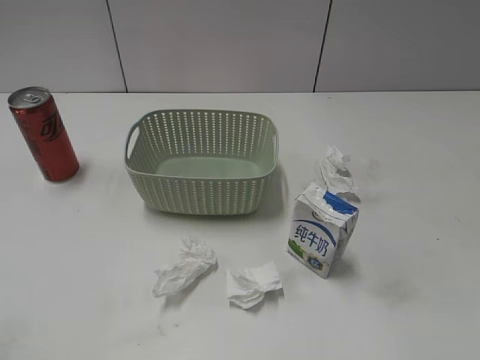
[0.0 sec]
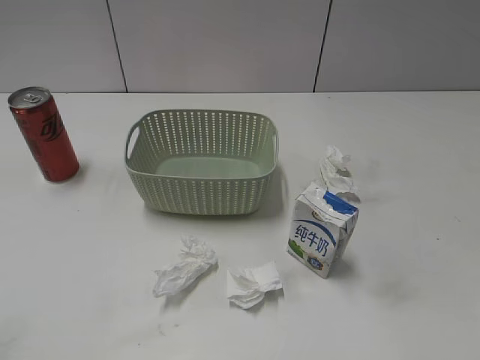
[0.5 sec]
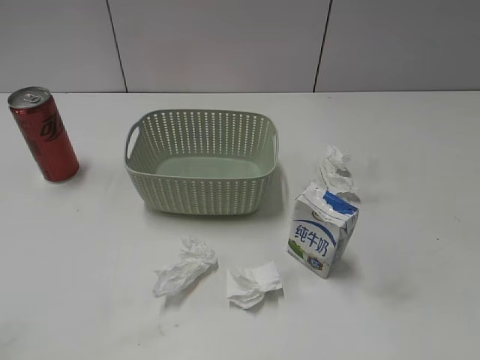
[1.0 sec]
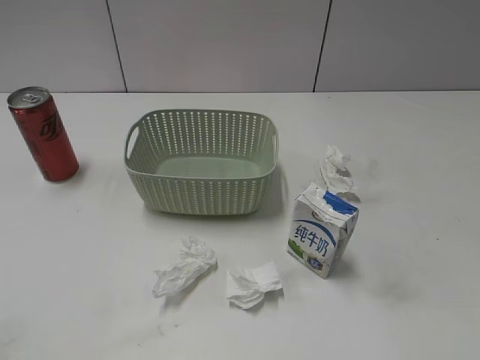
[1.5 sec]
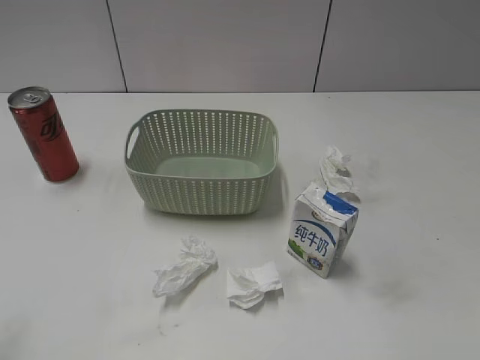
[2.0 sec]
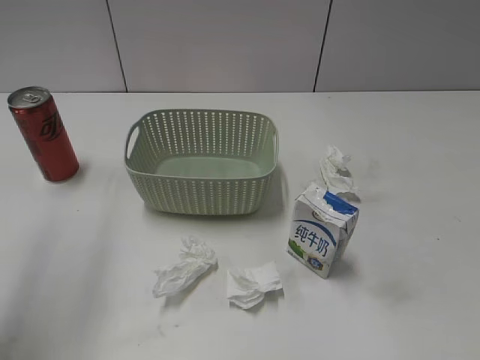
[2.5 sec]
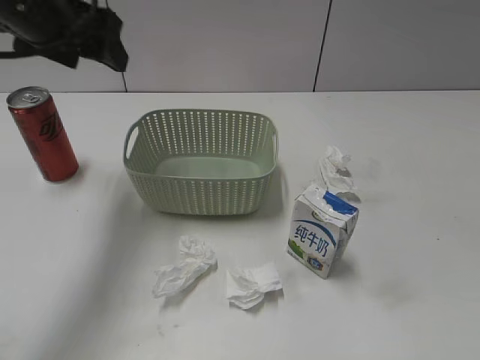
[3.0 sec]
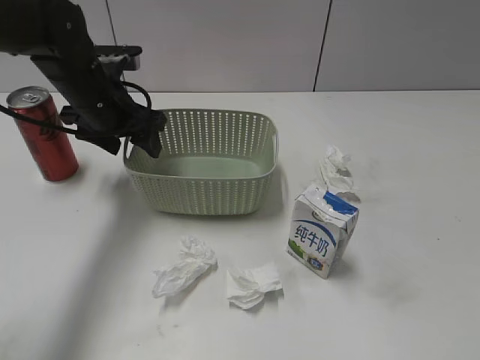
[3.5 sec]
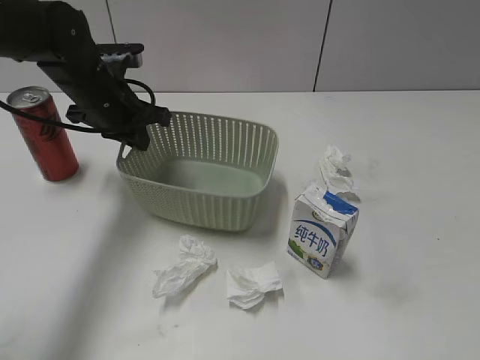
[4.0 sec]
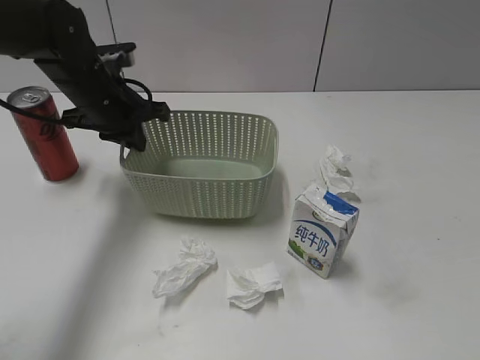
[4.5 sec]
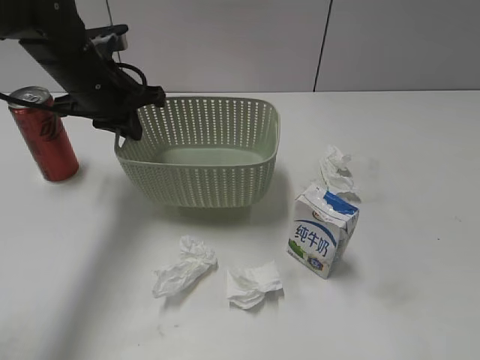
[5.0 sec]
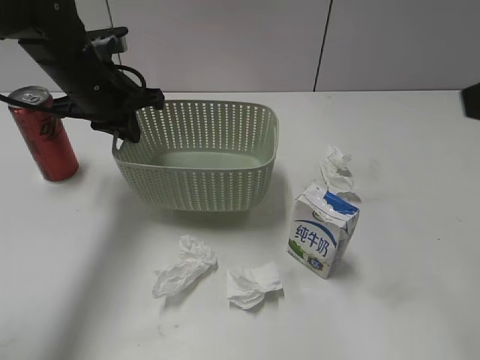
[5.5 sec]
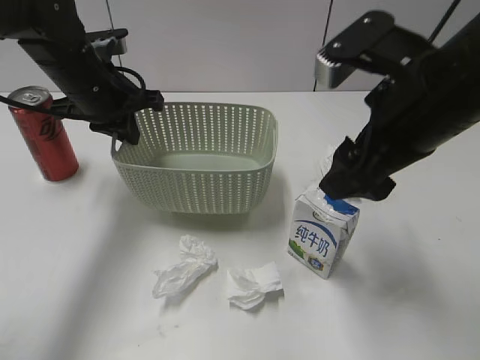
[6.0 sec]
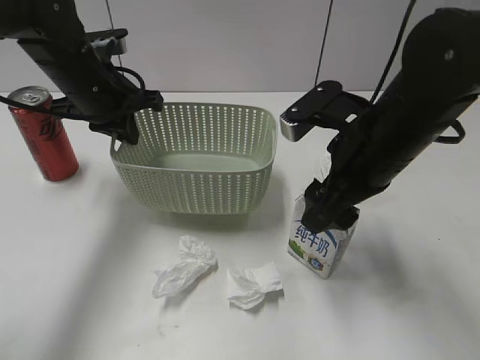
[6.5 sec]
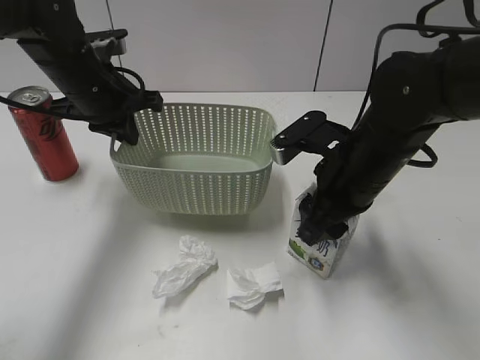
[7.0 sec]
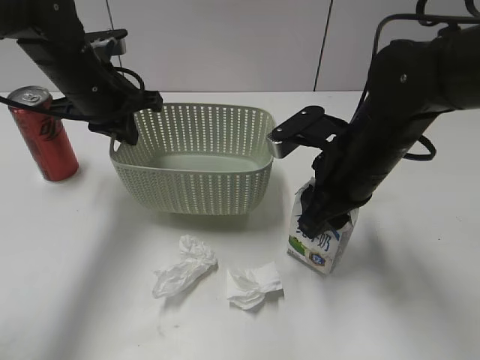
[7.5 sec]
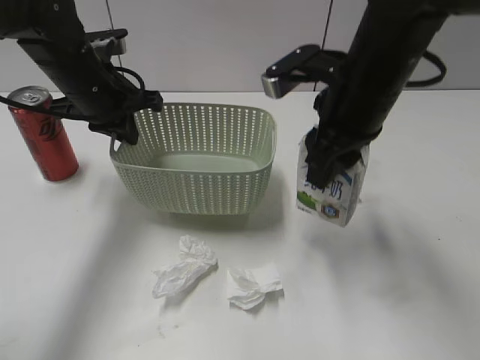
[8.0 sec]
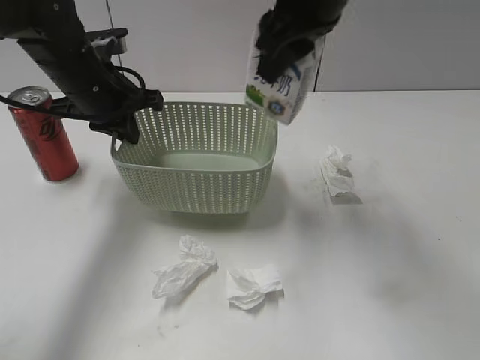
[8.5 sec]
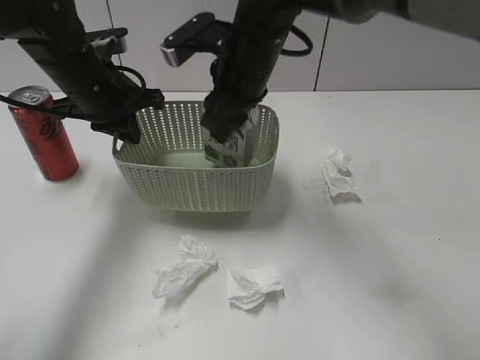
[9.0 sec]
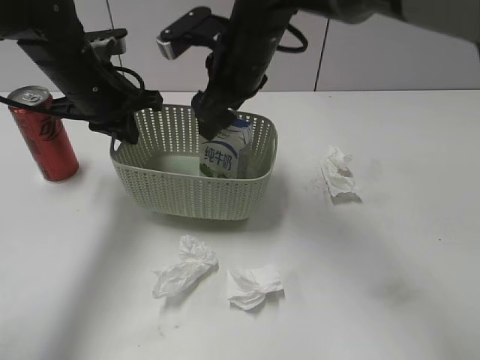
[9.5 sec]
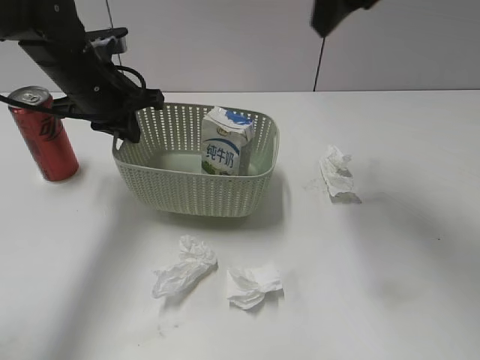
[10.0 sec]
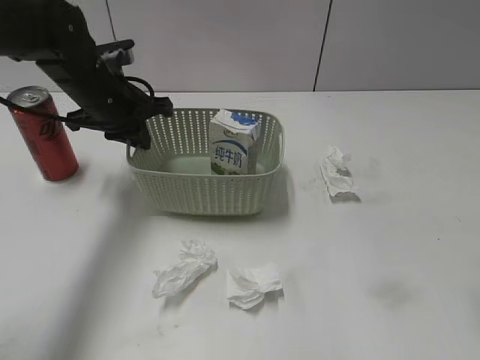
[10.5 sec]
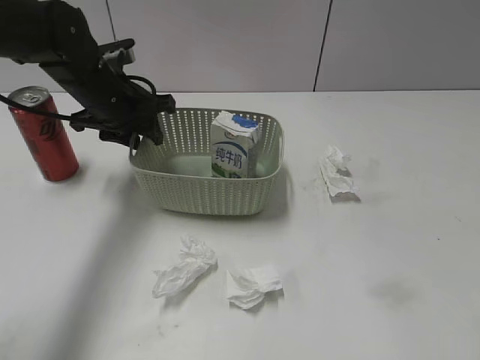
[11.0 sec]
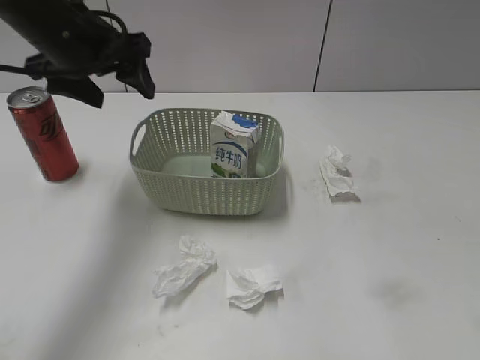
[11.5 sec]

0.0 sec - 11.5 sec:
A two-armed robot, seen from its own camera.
Step, 3.0 sec - 4.0 sec: Grasp the basket with left gripper.
Step, 4.5 sec - 5.0 sec: Lift the basket with left gripper.
Step, 5.5 sec - 7.0 sec: Grasp the milk with right gripper.
Step, 7.5 sec - 9.5 sec: Place the milk in the basket with right gripper.
Step, 10.0 sec - 11.5 sec: Place the basket on the table with left gripper.
2.0 sec - 4.0 sec: The left gripper heads forward, downward and to the right, covering about 40 cm, and closes up.
4.0 sec - 6.0 sec: The right gripper shifts roughly 30 cm forward and to the left.
6.0 sec - 7.5 sec: The right gripper shifts approximately 10 cm downward, and closes its fingers.
7.5 sec - 9.5 sec: The right gripper moves up and down over approximately 15 cm, changing direction 2 times, and opens its fingers.
9.5 sec - 11.5 sec: The left gripper moves upward, approximately 10 cm, and opens, while the right gripper goes approximately 35 cm to the right and backward.

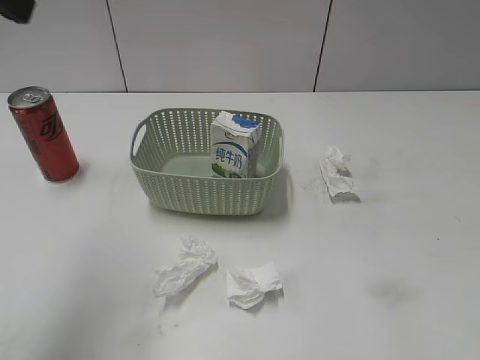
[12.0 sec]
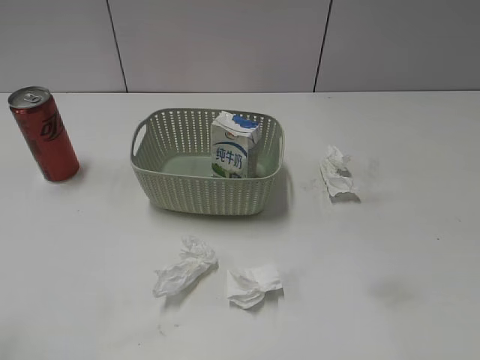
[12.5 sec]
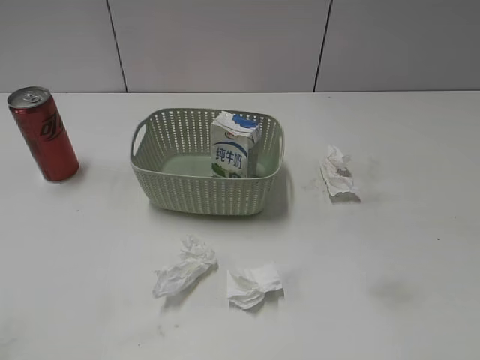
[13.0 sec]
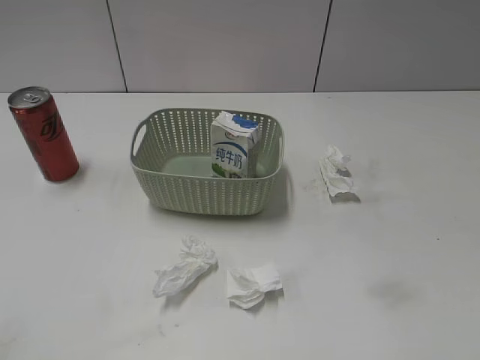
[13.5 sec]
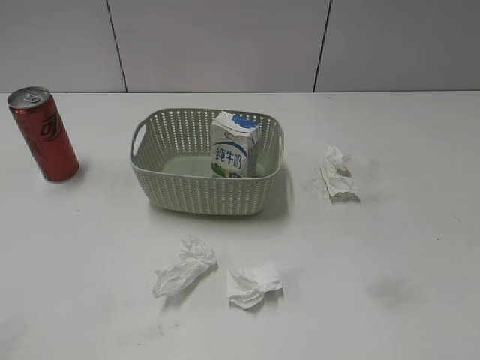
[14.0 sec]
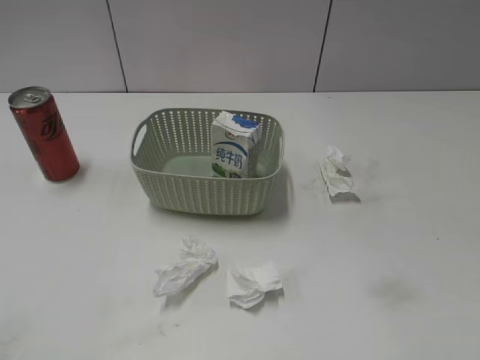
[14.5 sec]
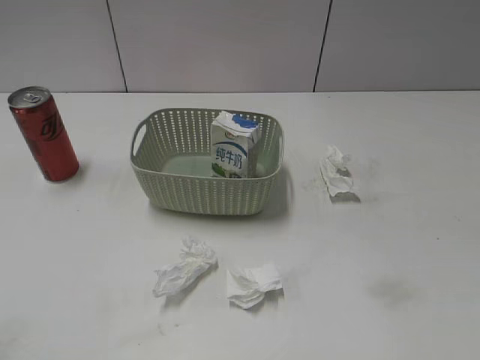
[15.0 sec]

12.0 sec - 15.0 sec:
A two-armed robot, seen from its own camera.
12.0 sec - 13.5 sec: The left gripper shifts some 20 cm backward and downward.
